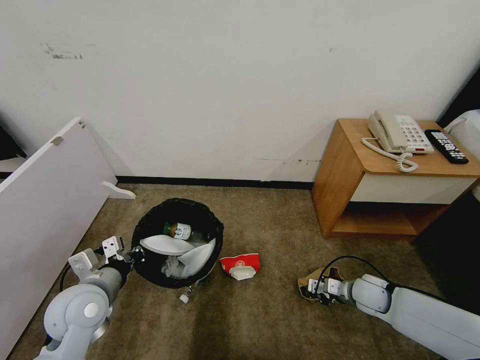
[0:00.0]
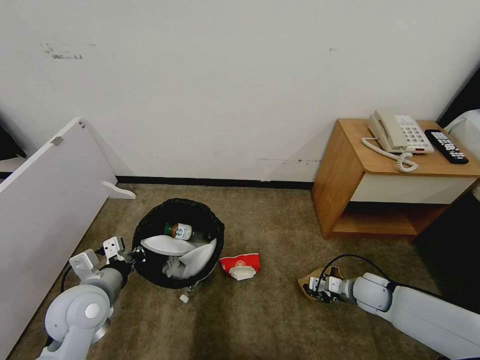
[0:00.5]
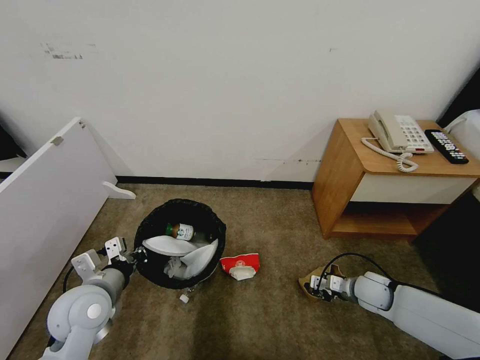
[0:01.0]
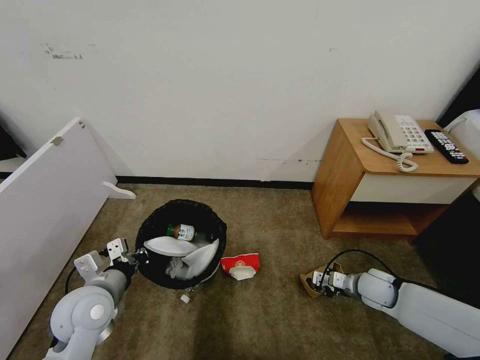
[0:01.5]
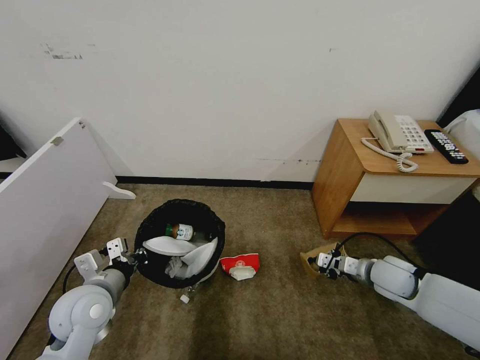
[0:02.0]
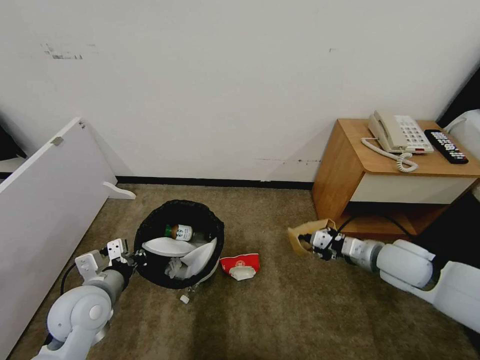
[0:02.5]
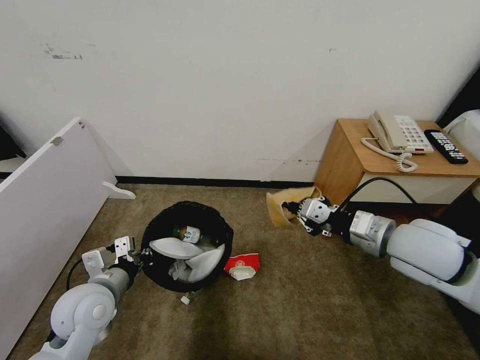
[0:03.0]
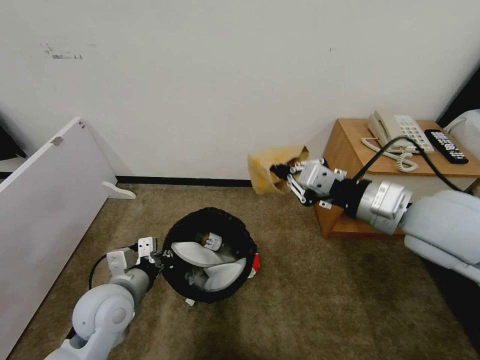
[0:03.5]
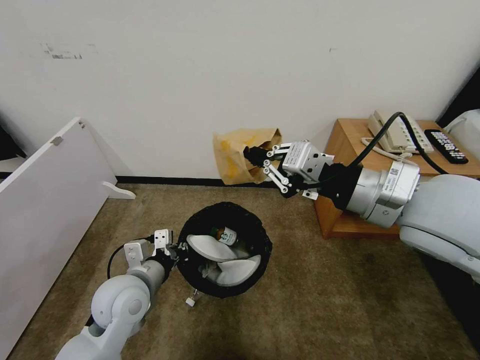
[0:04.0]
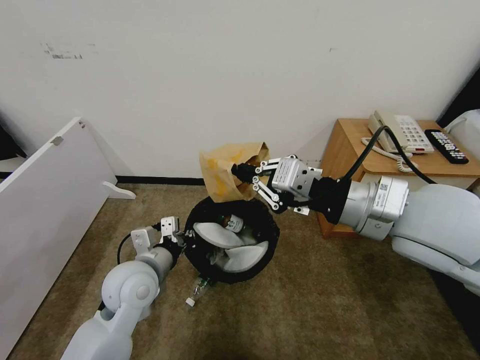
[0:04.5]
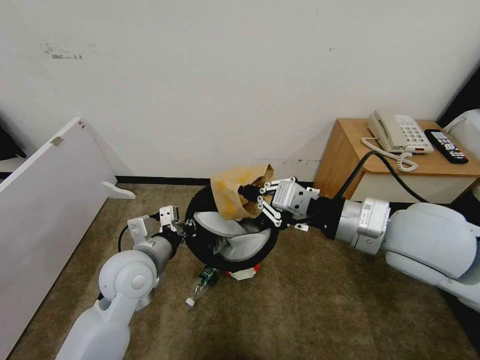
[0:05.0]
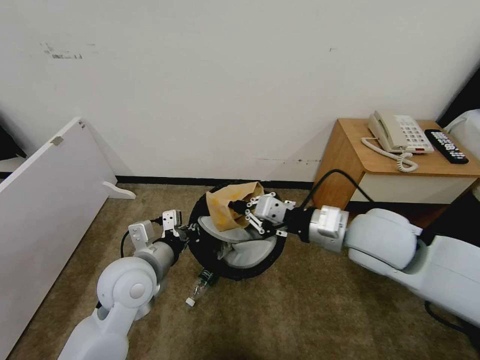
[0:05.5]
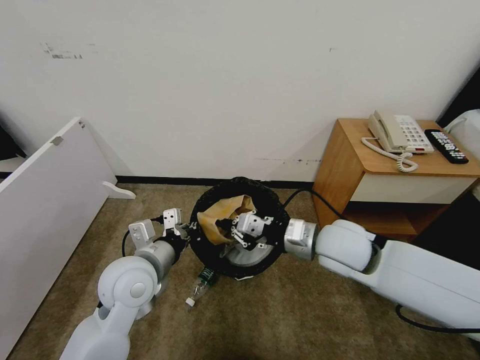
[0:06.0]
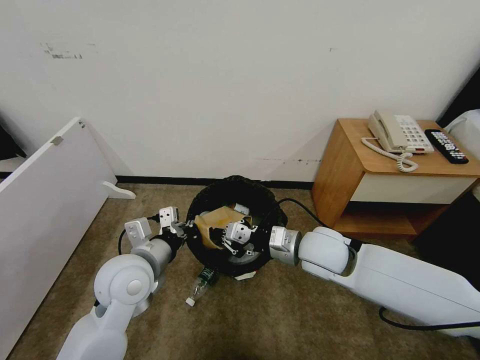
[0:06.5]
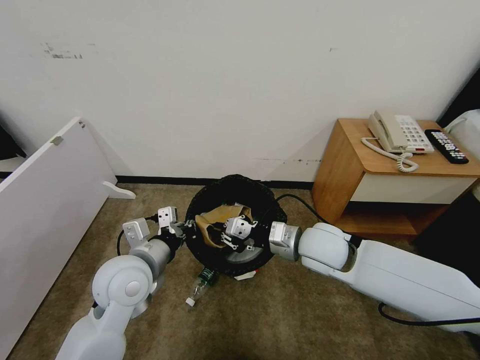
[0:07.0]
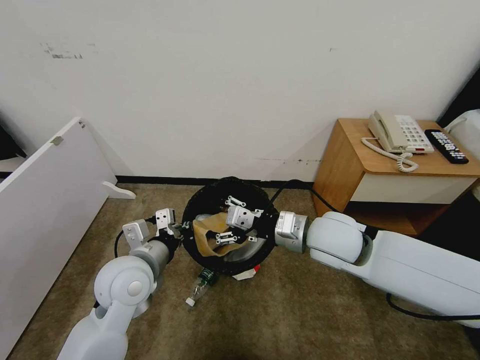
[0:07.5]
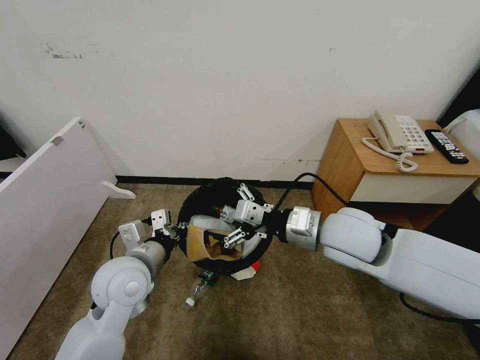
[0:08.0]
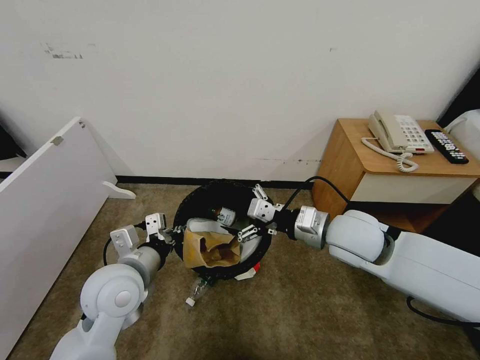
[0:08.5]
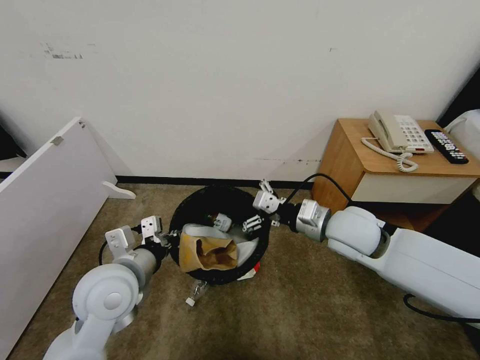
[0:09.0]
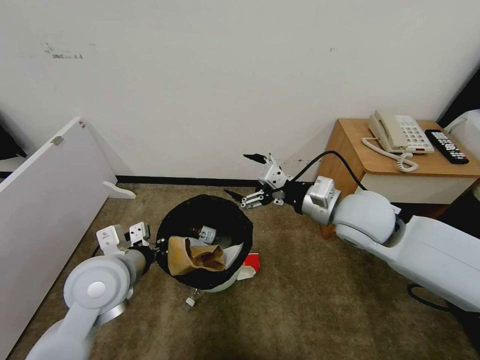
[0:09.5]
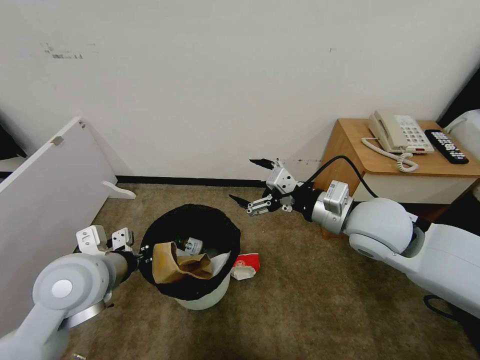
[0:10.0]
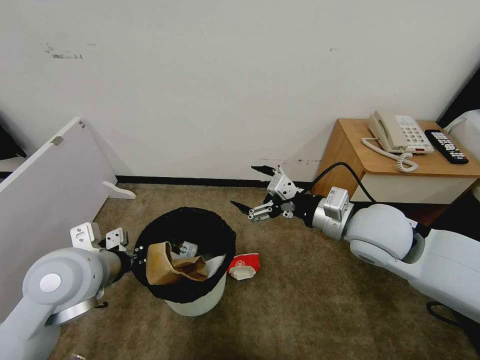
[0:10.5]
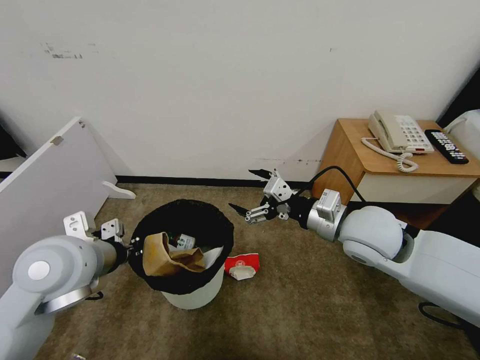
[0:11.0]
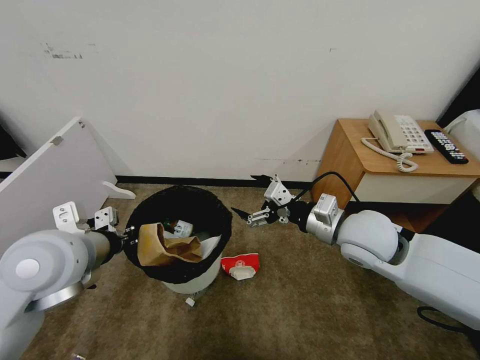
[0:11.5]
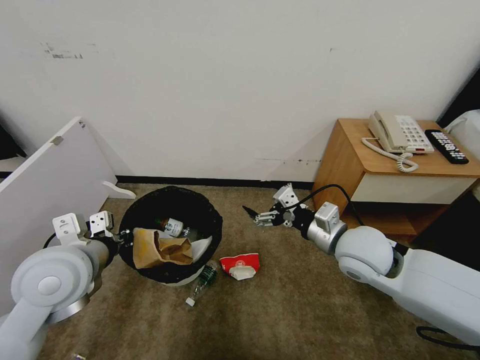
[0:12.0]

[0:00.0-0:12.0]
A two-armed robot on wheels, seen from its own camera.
Task of the whole recording: Pick up the trash bin and place the garbage on the floor into it.
0:00.0 to 0:02.0: The right gripper moves upward, about 10 cm.
0:02.0 to 0:04.0: The right gripper shifts approximately 35 cm upward and to the left, while the left gripper heads to the right, covering approximately 5 cm.
0:04.0 to 0:06.0: The right gripper goes approximately 15 cm downward; the left gripper shifts by some 5 cm.
0:06.0 to 0:08.0: The right gripper opens its fingers.
0:08.0 to 0:10.0: The left gripper shifts roughly 5 cm upward.
0:10.0 to 0:12.0: The right gripper heads downward, covering approximately 5 cm.

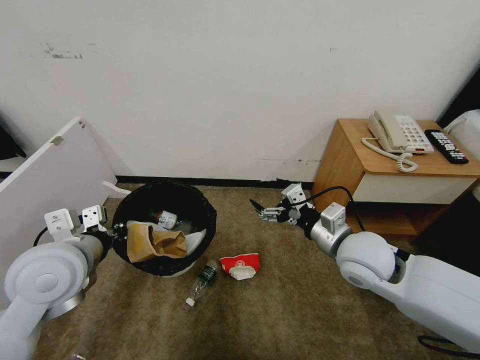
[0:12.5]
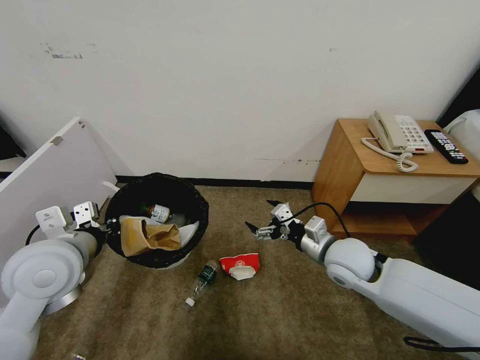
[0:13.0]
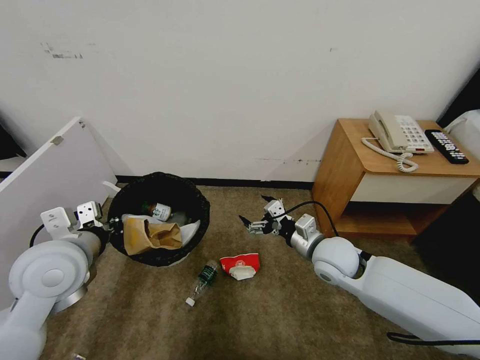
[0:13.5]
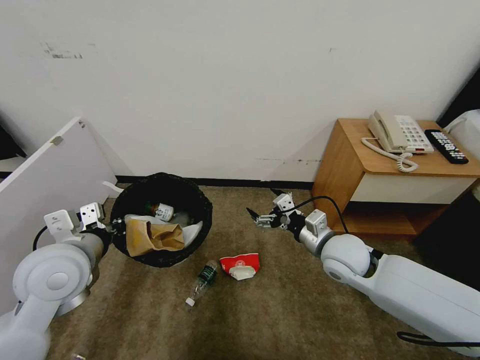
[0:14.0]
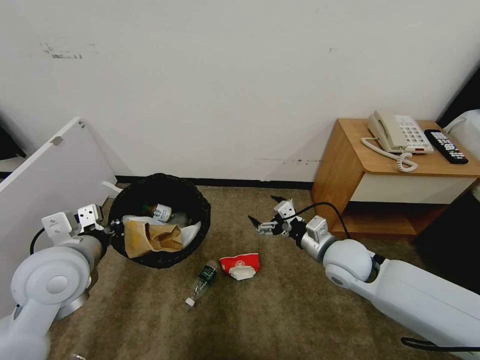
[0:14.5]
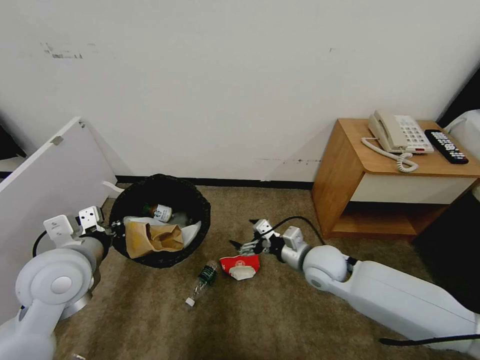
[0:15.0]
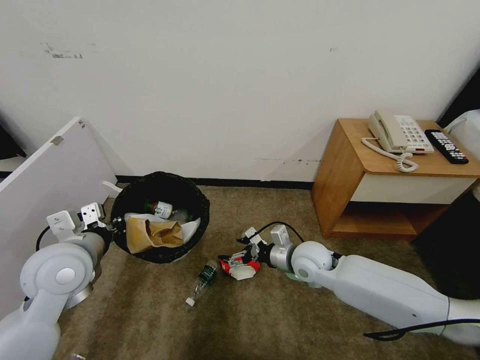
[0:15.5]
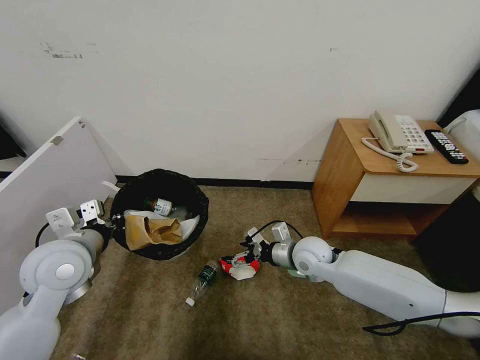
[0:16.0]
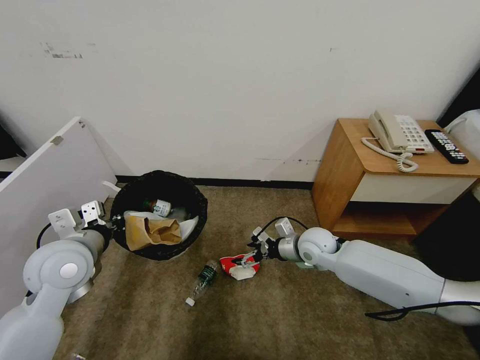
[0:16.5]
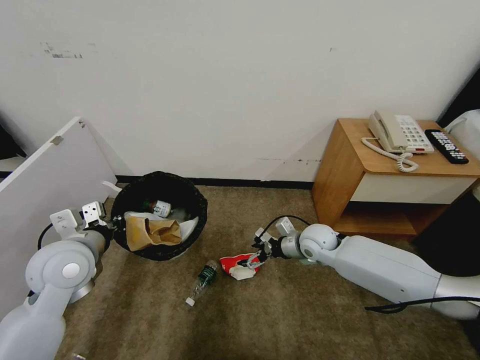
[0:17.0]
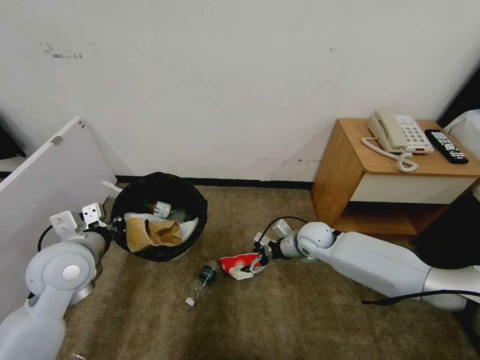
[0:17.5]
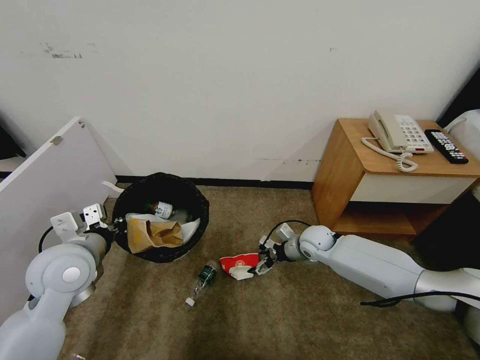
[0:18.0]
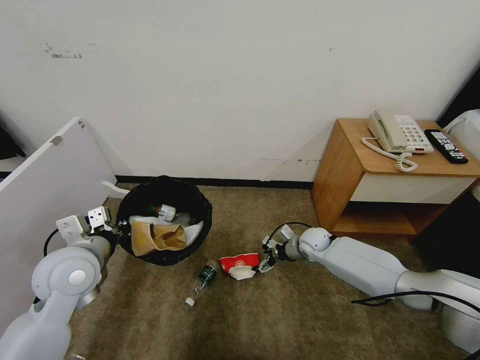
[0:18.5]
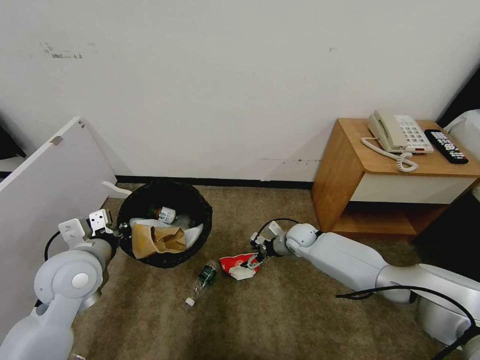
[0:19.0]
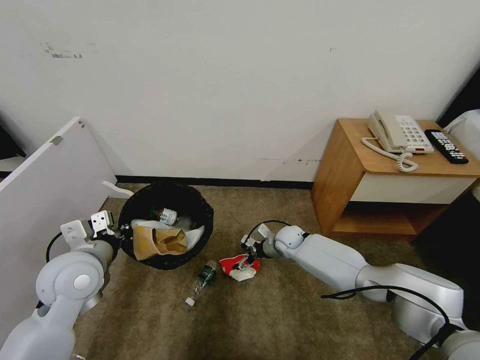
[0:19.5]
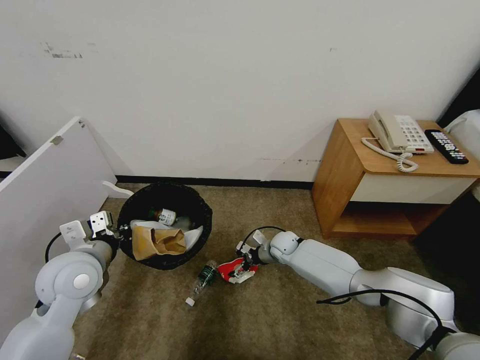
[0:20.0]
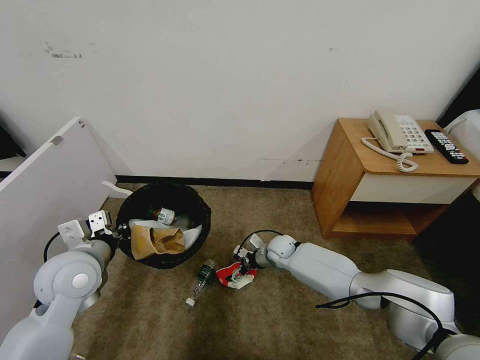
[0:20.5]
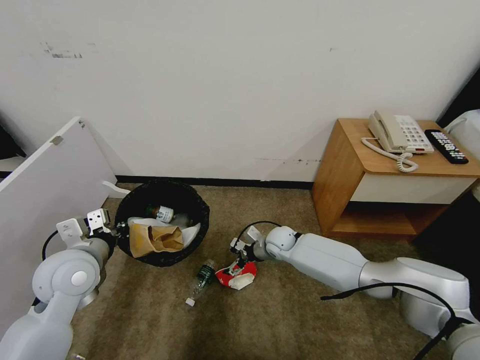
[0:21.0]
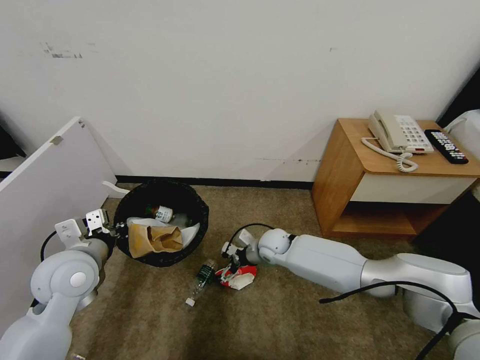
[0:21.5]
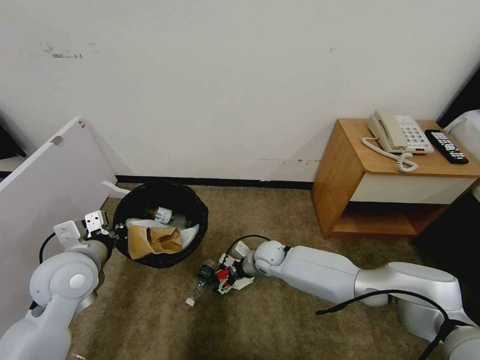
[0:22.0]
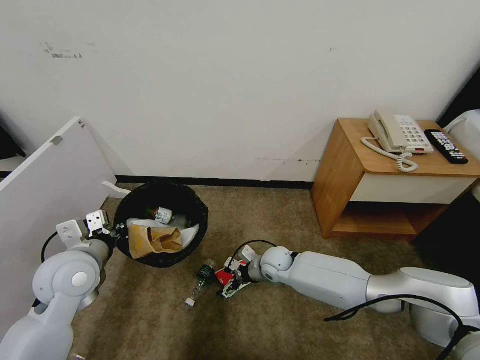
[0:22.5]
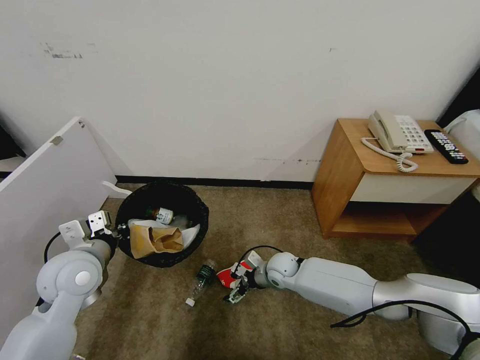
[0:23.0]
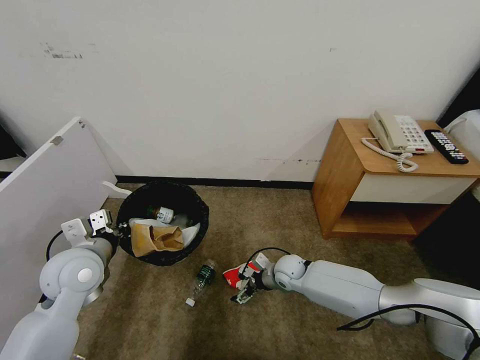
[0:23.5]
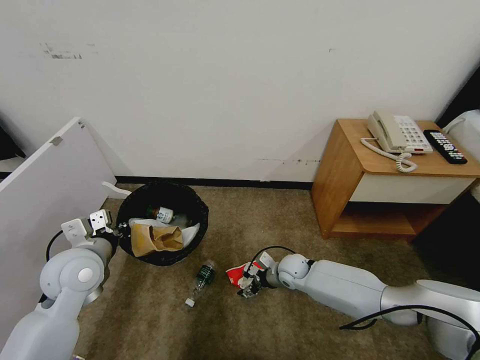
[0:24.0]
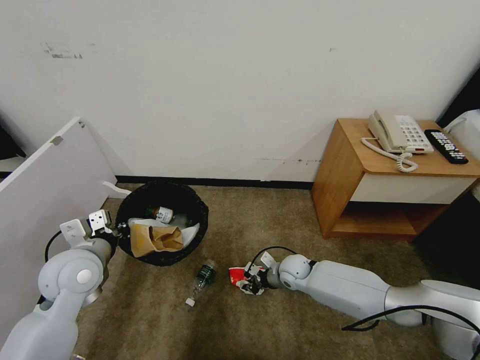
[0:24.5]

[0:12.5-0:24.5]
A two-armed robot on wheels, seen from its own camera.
Task of the whole recording: Pick up the trash bin and place the garbage on the floor into it.
0:12.5 to 0:14.5: The right gripper heads downward, covering roughly 5 cm.
0:14.5 to 0:16.5: The right gripper shifts about 10 cm forward and downward.
0:16.5 to 0:18.5: The right gripper is displaced downward and forward by about 10 cm.
0:18.5 to 0:20.5: The right gripper is displaced to the left by approximately 10 cm.
0:20.5 to 0:22.5: The right gripper travels backward by roughly 5 cm.
0:22.5 to 0:24.5: The right gripper goes some 5 cm to the right, and closes up.

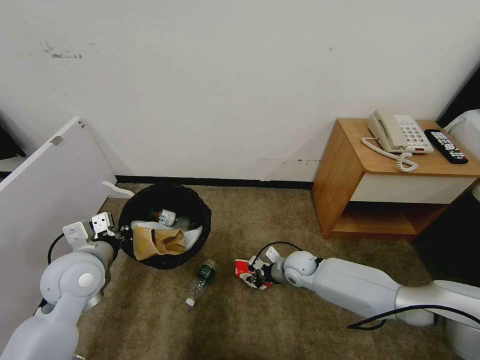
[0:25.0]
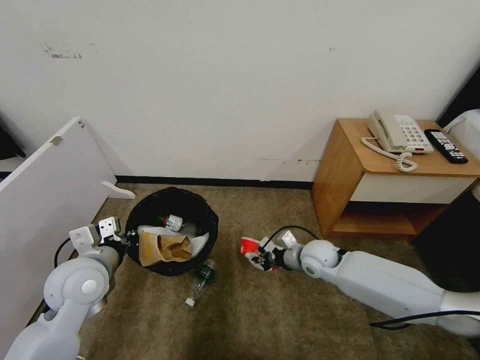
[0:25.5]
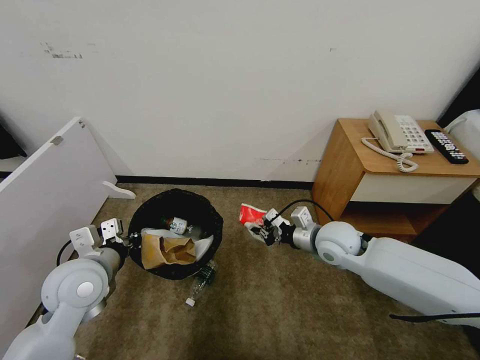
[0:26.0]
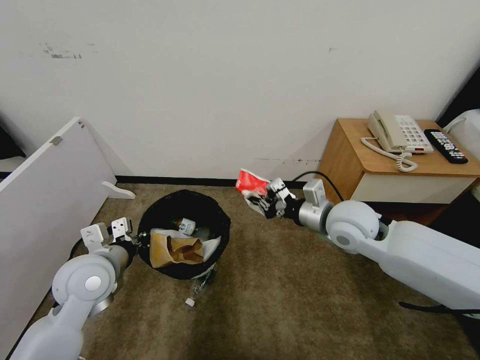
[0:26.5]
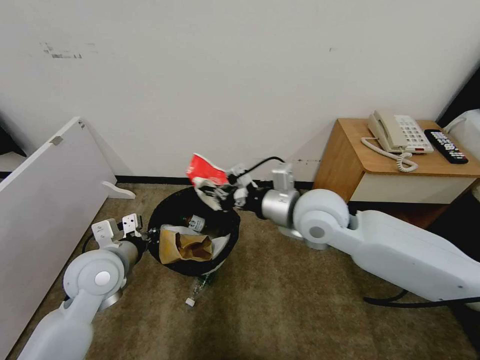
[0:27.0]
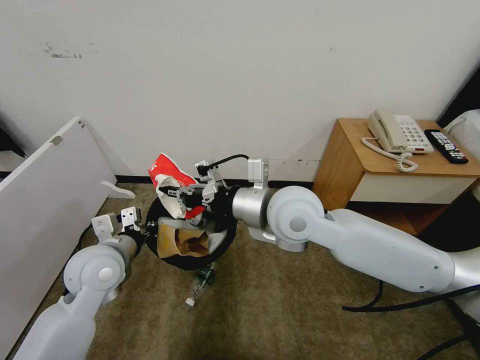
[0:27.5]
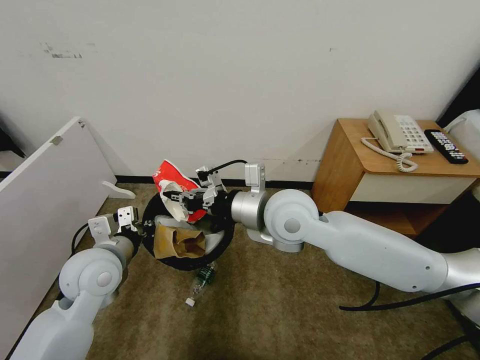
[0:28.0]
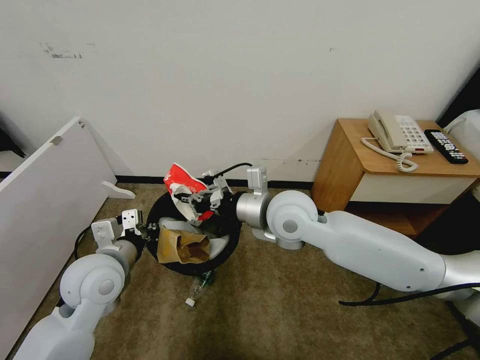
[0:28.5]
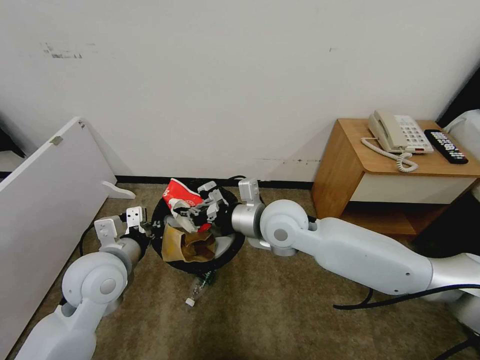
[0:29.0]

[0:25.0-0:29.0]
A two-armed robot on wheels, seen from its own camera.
Task of the whole recording: Pick up the trash bin and place the garbage on the floor into it.
0:25.0 to 0:27.0: The right gripper shifts roughly 30 cm upward.
0:27.0 to 0:29.0: The right gripper shifts some 5 cm to the left.
